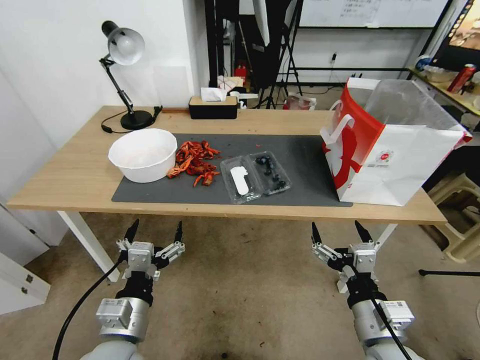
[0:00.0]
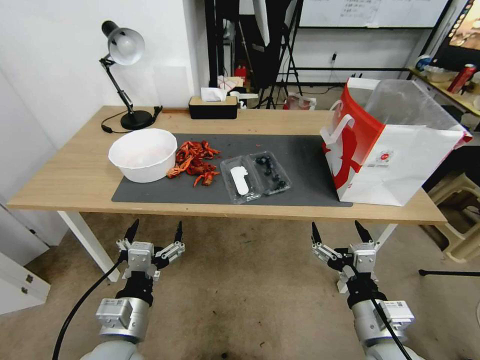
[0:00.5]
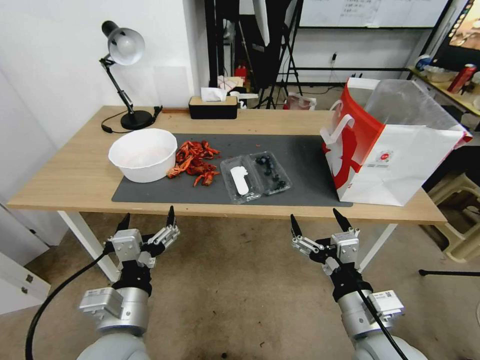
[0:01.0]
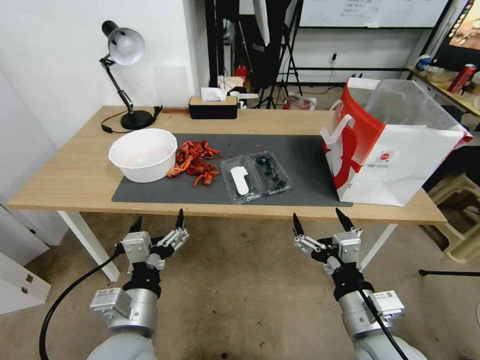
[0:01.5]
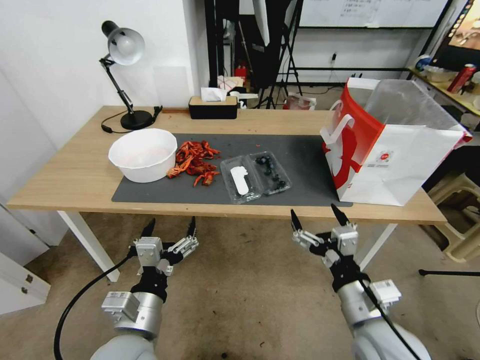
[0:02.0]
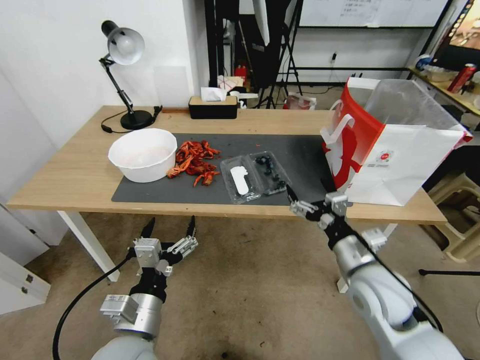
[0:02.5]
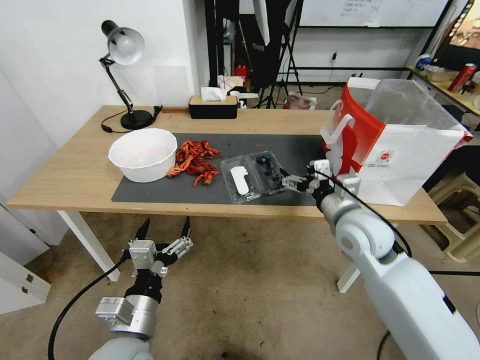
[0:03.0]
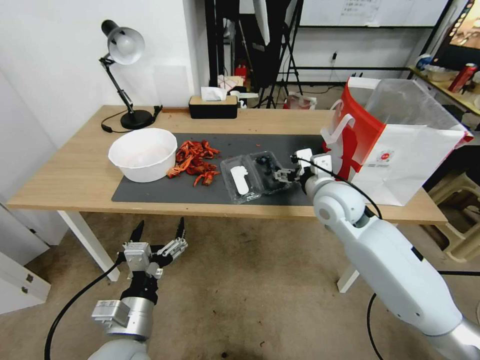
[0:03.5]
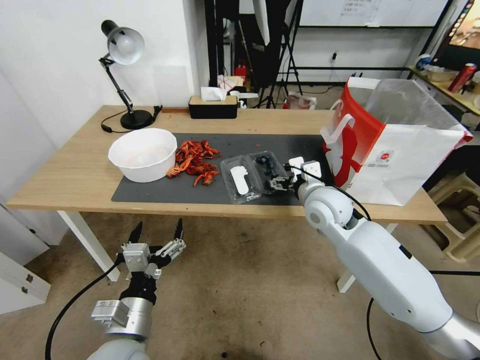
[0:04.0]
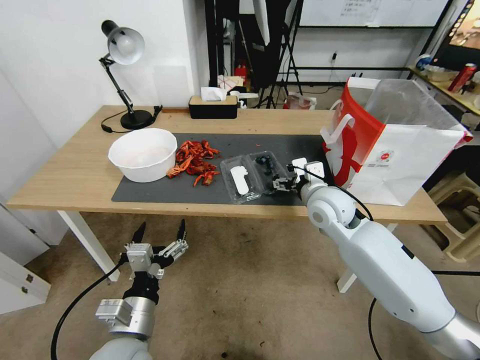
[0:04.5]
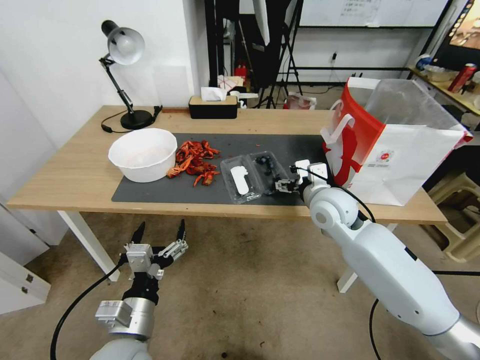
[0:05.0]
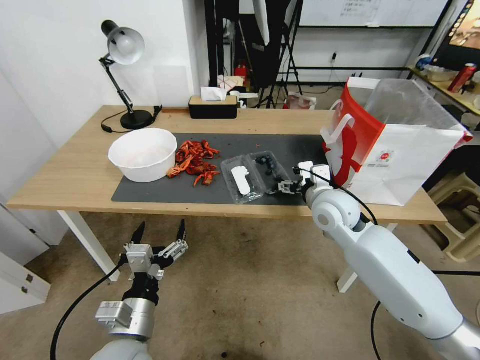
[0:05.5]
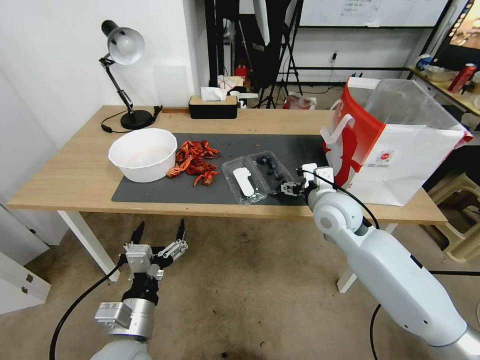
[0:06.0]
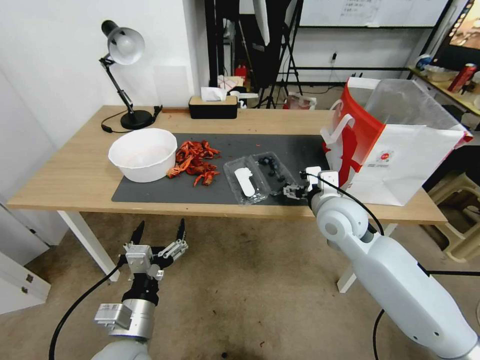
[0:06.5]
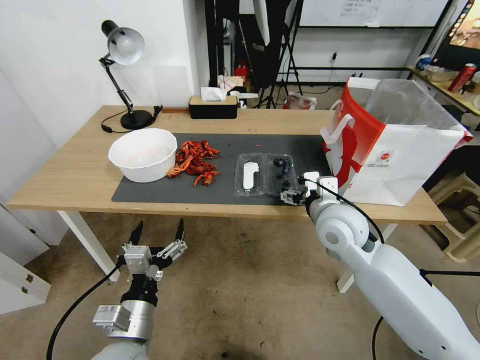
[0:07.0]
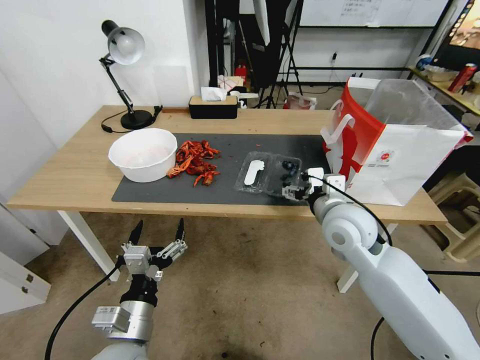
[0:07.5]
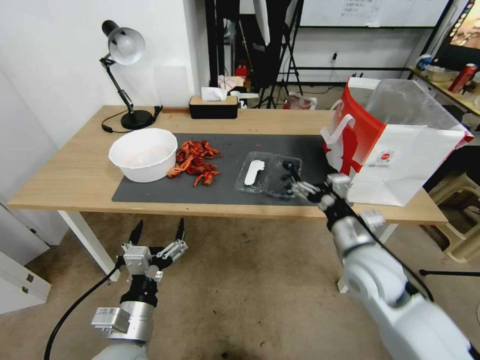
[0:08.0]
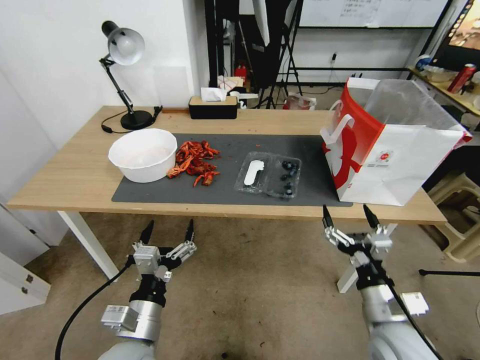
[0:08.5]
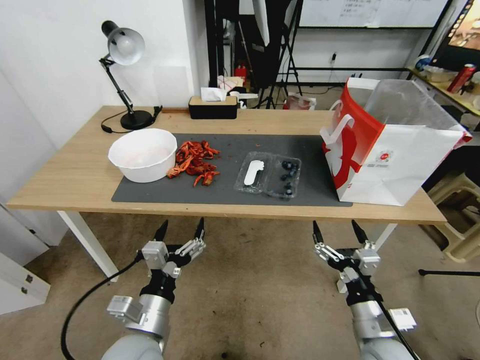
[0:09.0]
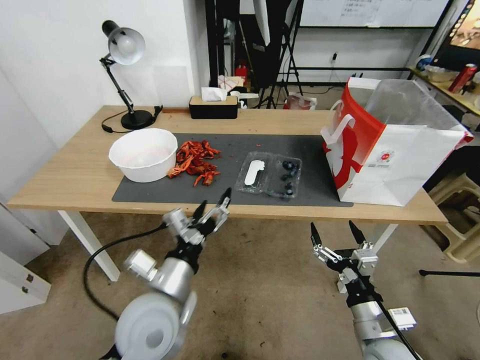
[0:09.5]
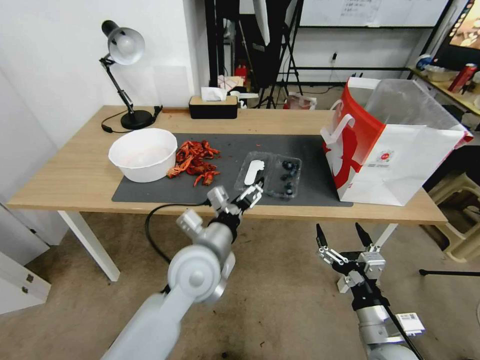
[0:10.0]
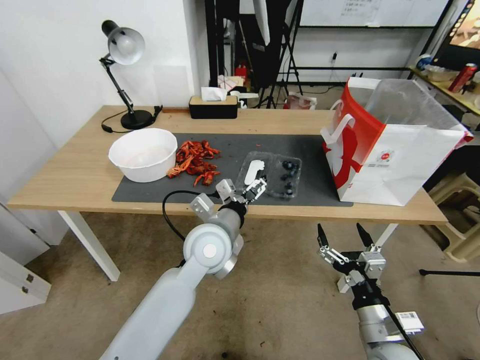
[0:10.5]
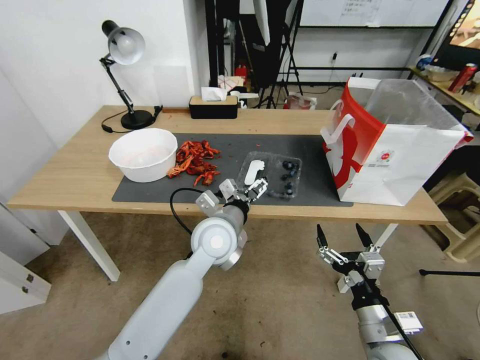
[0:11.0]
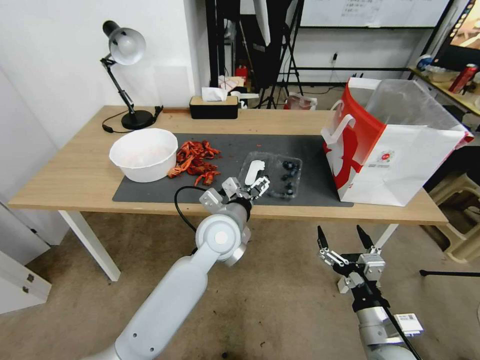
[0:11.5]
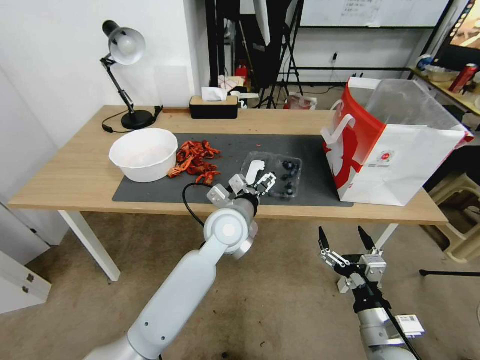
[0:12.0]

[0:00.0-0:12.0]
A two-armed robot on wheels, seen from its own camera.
Task of the whole recording: Close the takeout container lid, then place the container into the takeout bag.
0:02.0 to 0:04.0: The right gripper goes some 25 cm forward.
0:04.0 to 0:06.0: The grippers stay close to where they were, moving slightly.
0:06.0 to 0:08.0: The right gripper shifts about 10 cm backward.
0:08.0 to 0:10.0: The left gripper shifts roughly 20 cm forward, to the right and upward. The right gripper heads backward and downward, covering about 20 cm.
0:10.0 to 0:12.0: The left gripper travels forward and to the right by about 10 cm.

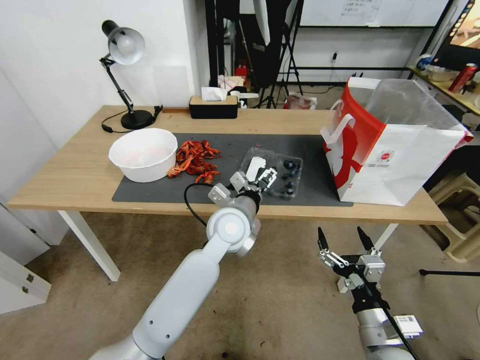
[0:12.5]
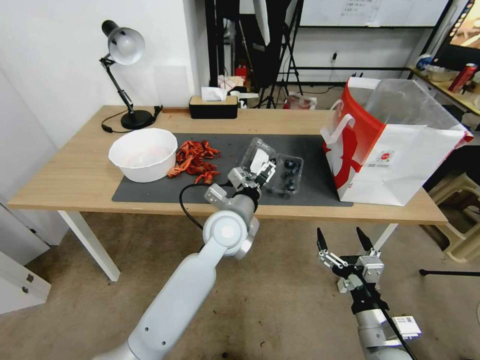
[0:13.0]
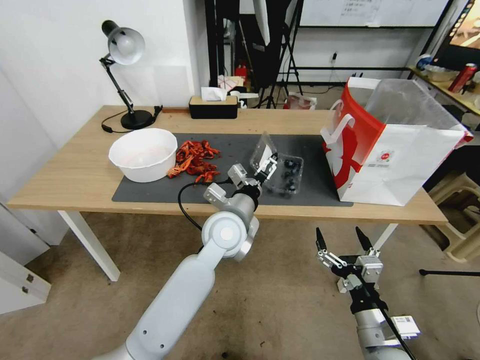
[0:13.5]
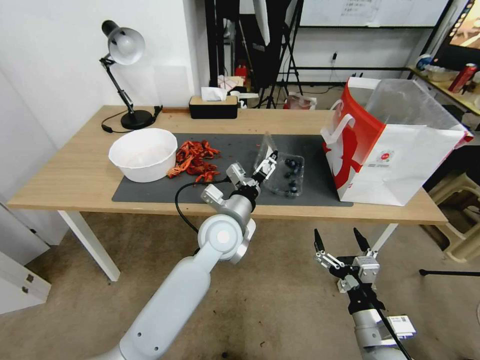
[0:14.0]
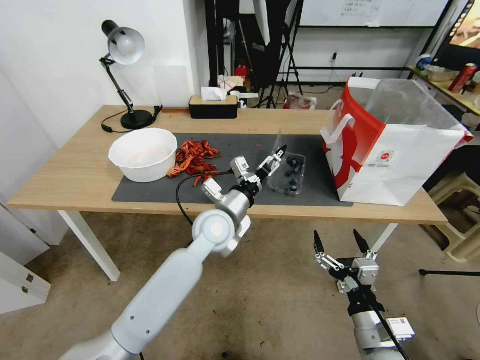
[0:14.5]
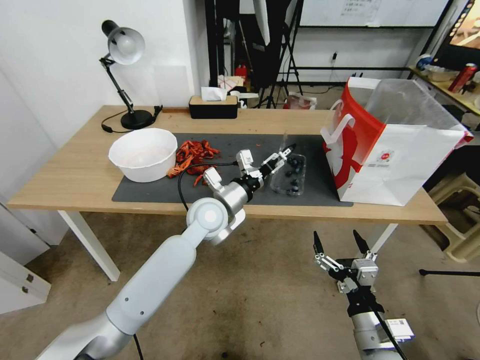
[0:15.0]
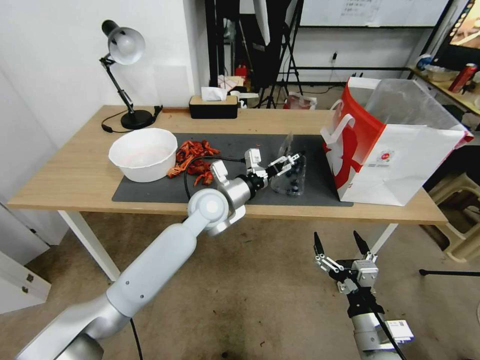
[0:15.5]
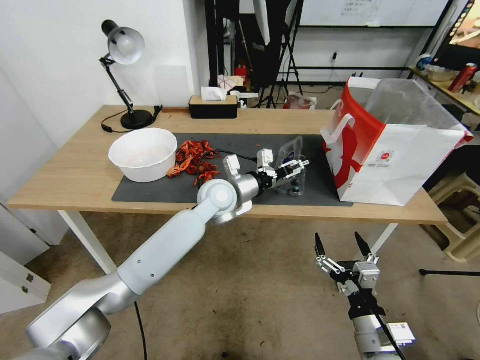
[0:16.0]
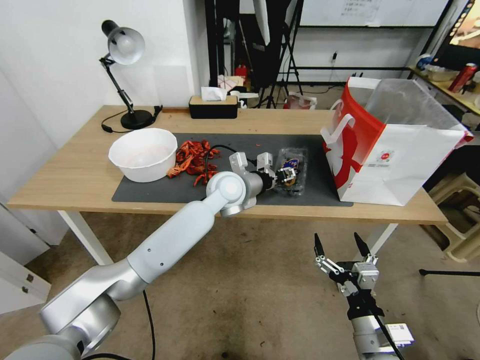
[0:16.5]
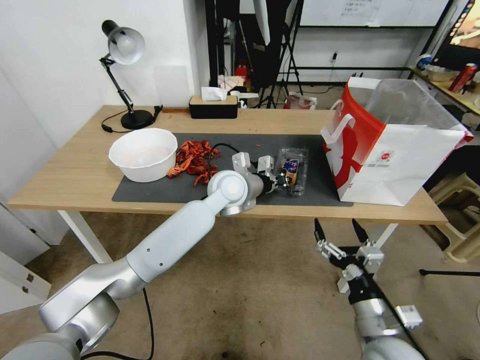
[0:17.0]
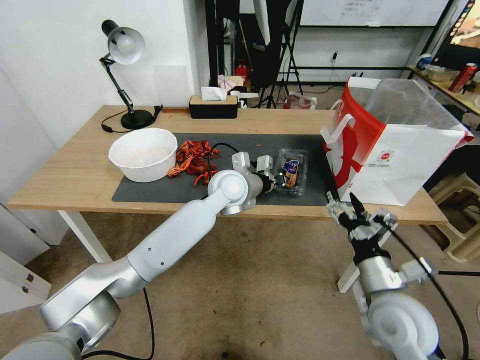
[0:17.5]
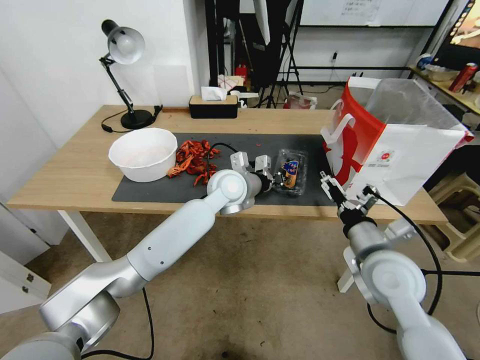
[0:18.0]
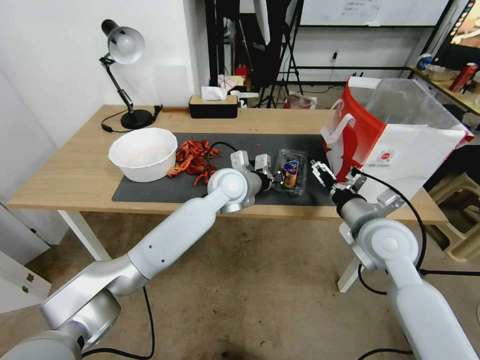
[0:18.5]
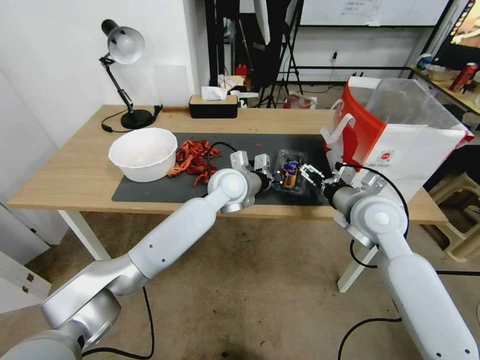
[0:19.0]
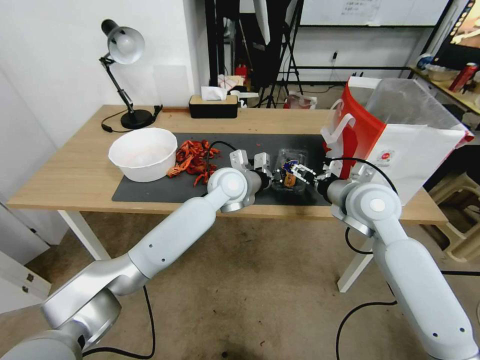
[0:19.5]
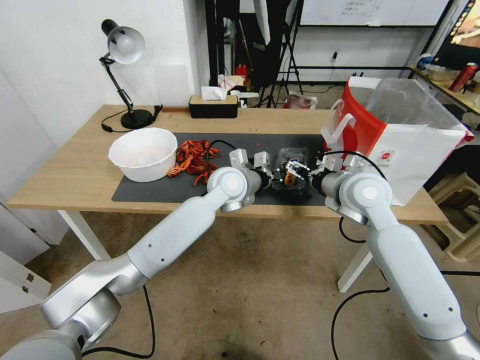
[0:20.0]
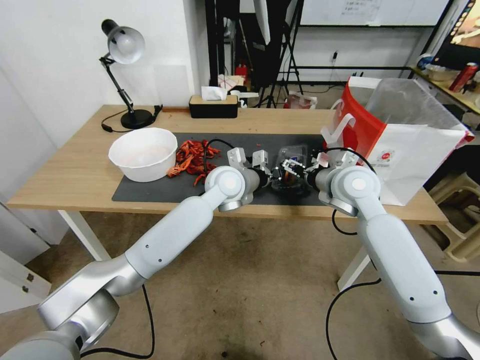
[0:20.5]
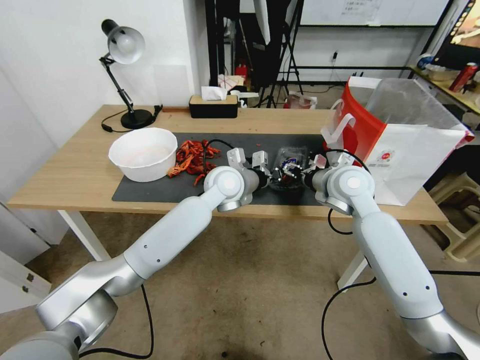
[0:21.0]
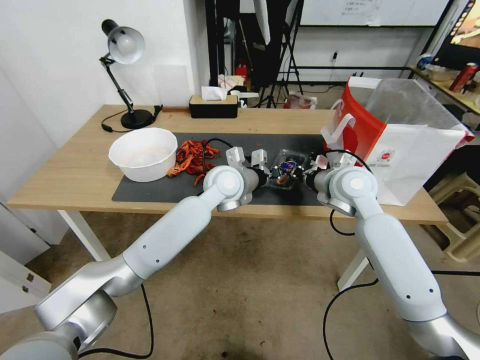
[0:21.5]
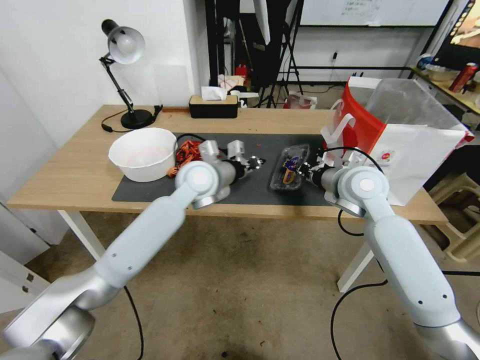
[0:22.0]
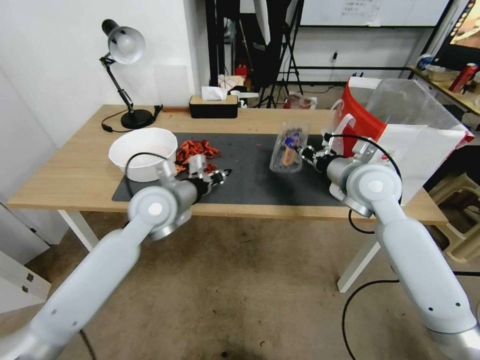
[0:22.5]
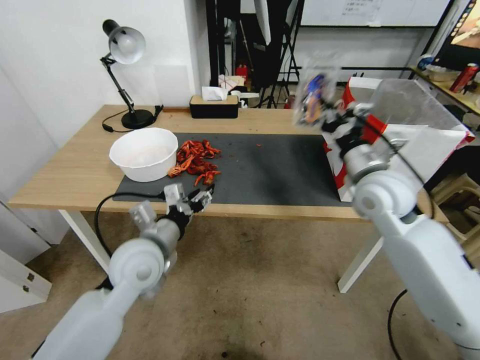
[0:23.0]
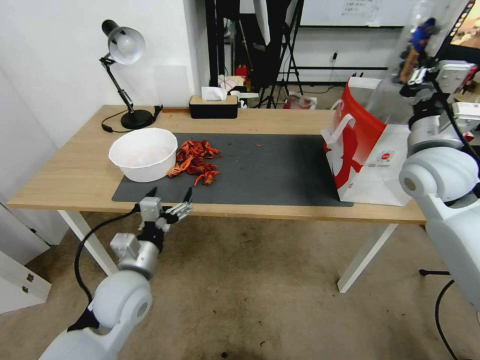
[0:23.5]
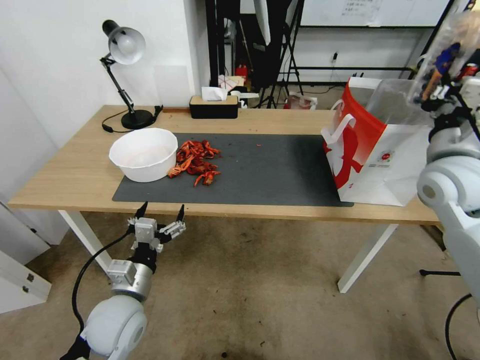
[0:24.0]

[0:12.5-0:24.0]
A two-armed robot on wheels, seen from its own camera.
Task of the whole recording: Close the takeout container lid, then place the container into the takeout bag.
0:14.5 to 0:16.5: The left gripper heads forward, covering roughly 10 cm, and closes its fingers.
0:16.5 to 0:18.5: The right gripper moves forward and upward, about 25 cm; the left gripper closes up.
0:18.5 to 0:20.0: The right gripper goes about 10 cm forward.
0:20.0 to 0:22.0: The right gripper closes; the left gripper shifts about 5 cm to the left.
0:22.0 to 0:24.0: The right gripper moves to the right, upward and backward, about 15 cm; the left gripper is displaced backward, downward and to the left by roughly 30 cm, and opens up.

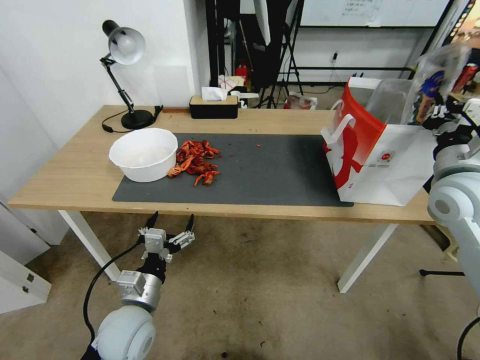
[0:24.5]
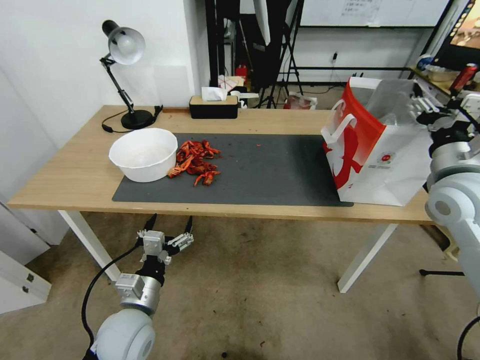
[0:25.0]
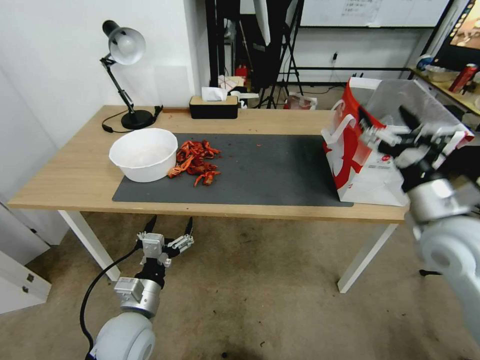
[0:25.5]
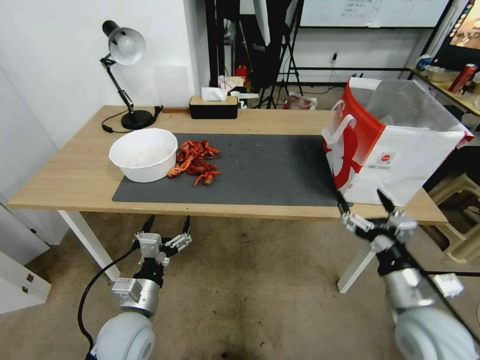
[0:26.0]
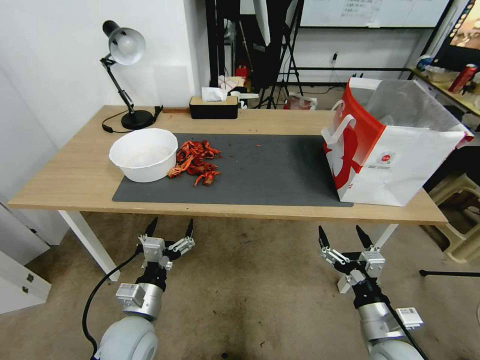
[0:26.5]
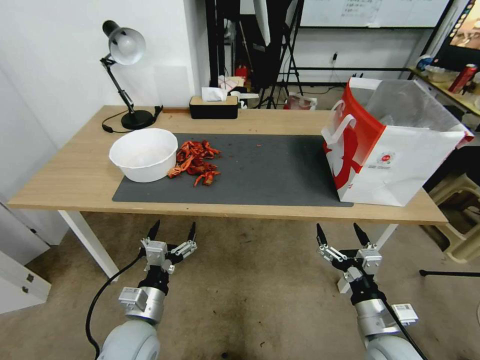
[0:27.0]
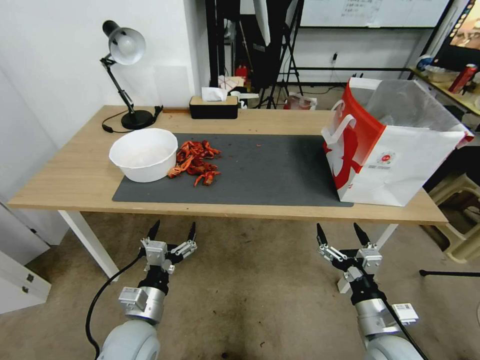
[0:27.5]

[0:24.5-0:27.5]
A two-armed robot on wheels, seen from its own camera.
Task of the whole recording: Close the takeout container lid, then place the container into the takeout bag.
0:24.5 to 0:26.0: The right gripper moves backward and downward, some 25 cm, and opens its fingers.
0:26.0 to 0:27.5: The right gripper is displaced downward by some 5 cm.
